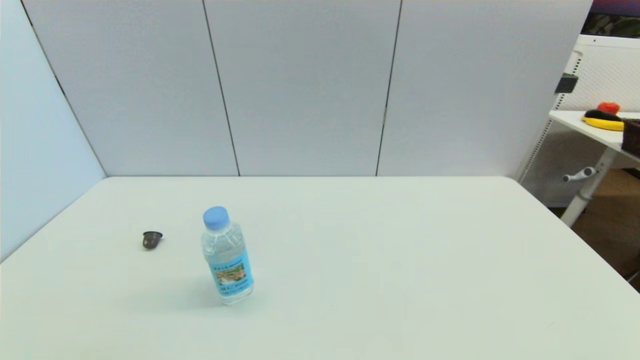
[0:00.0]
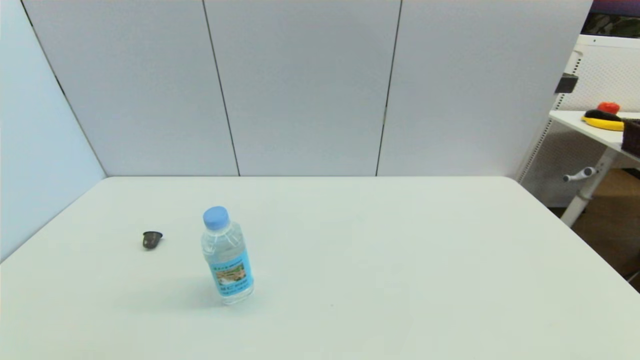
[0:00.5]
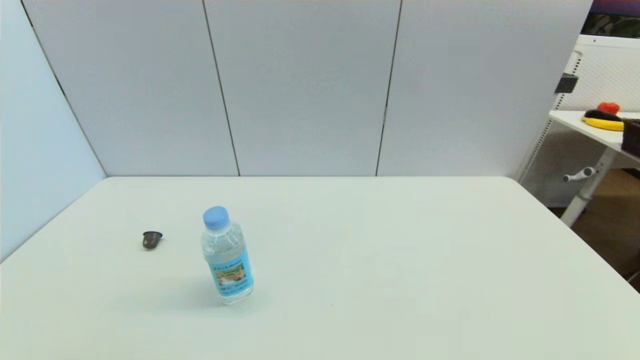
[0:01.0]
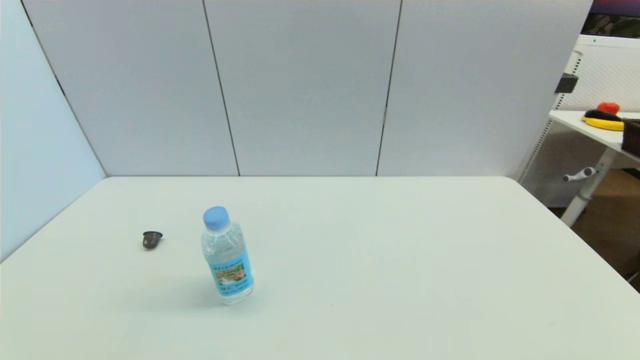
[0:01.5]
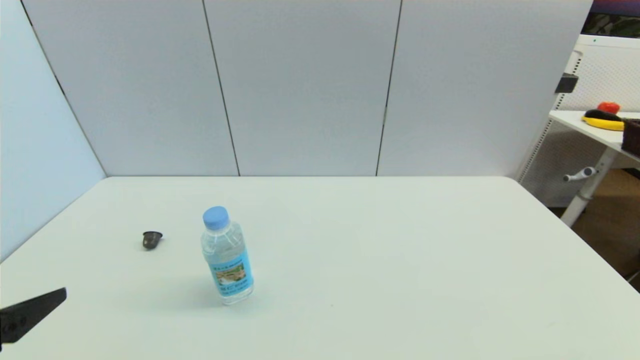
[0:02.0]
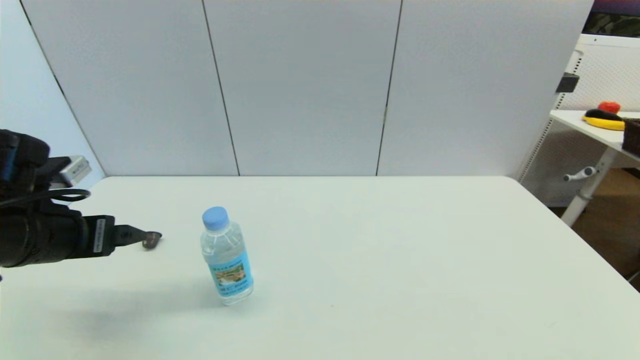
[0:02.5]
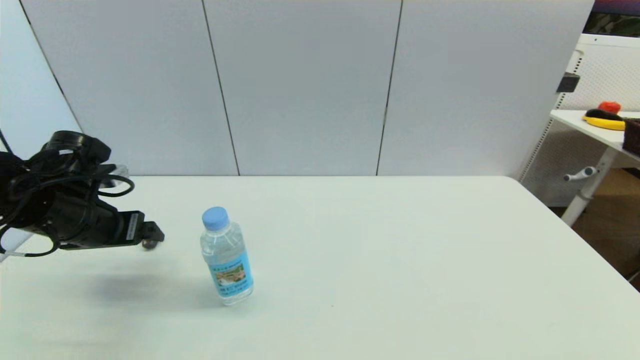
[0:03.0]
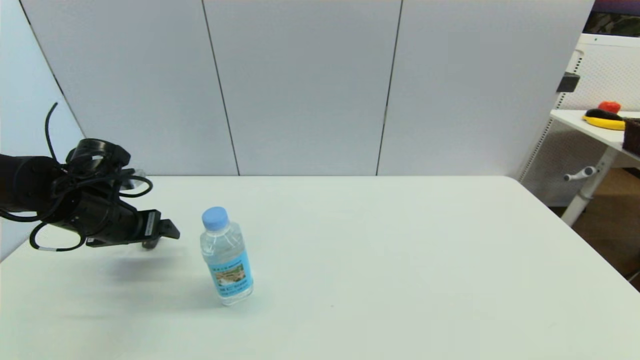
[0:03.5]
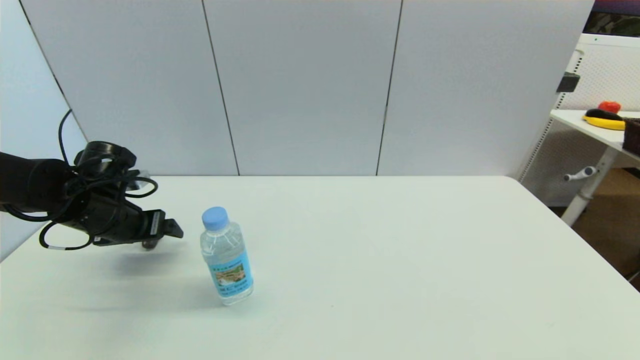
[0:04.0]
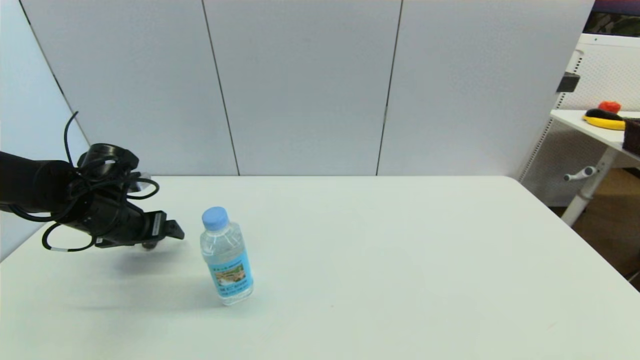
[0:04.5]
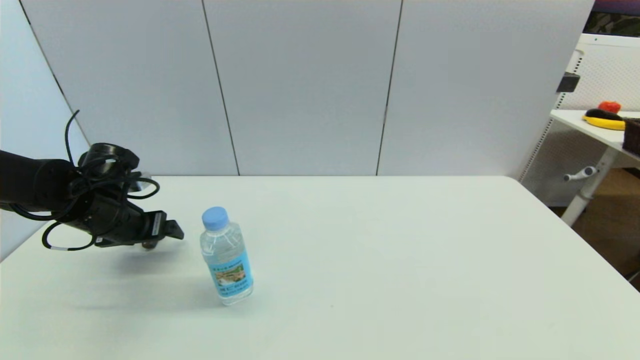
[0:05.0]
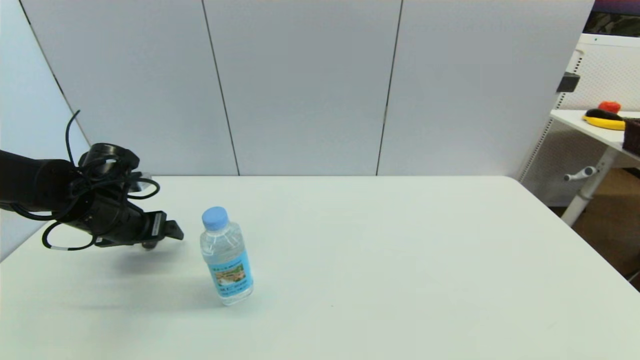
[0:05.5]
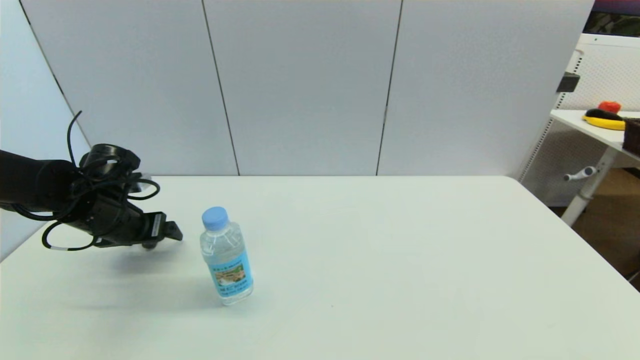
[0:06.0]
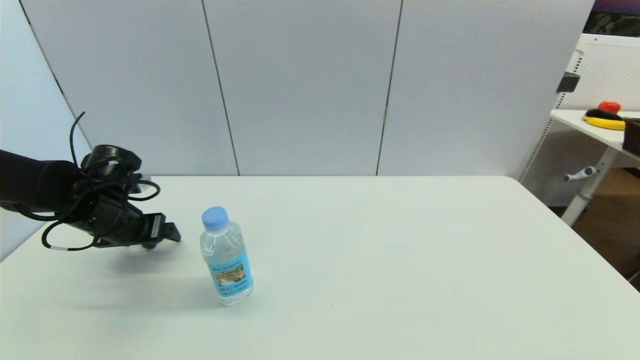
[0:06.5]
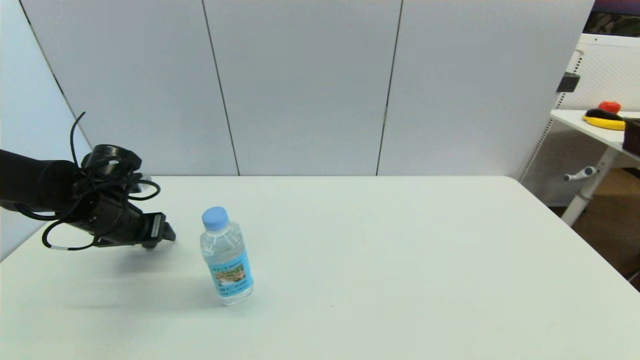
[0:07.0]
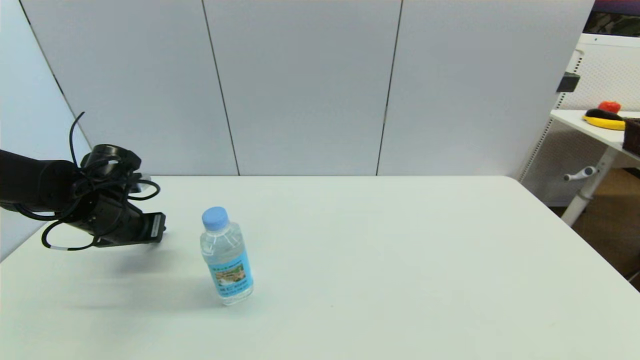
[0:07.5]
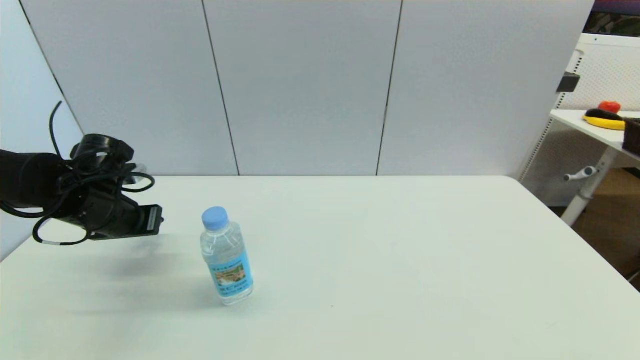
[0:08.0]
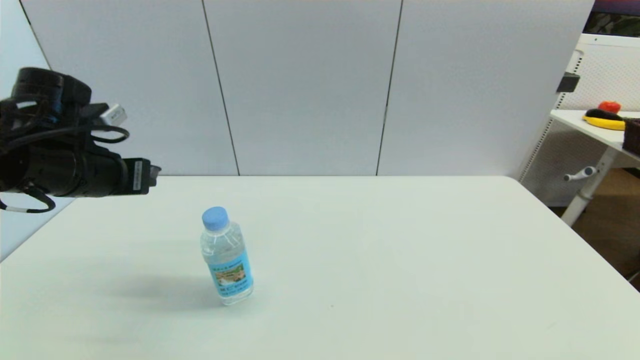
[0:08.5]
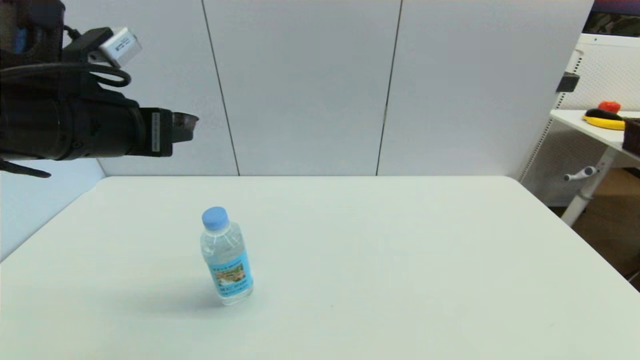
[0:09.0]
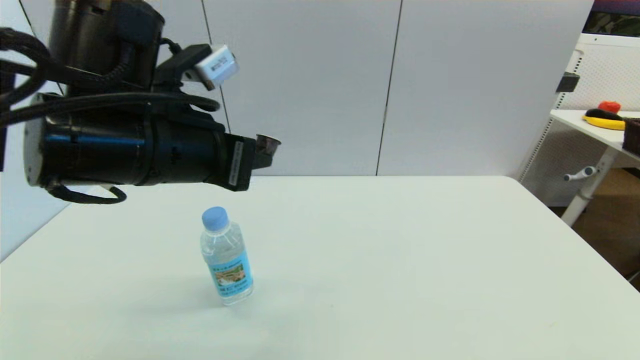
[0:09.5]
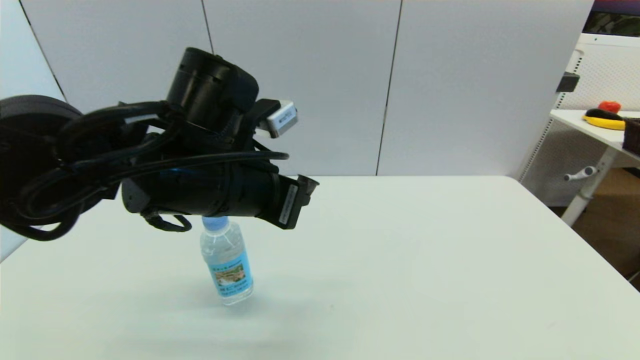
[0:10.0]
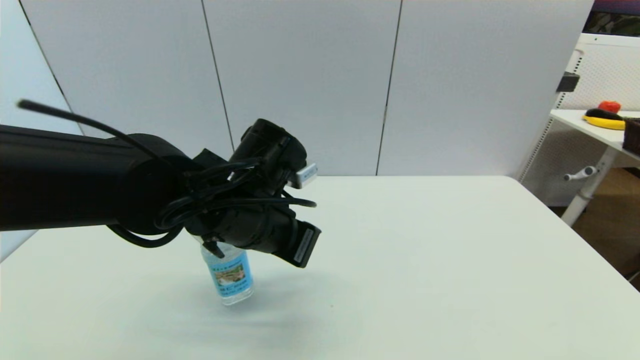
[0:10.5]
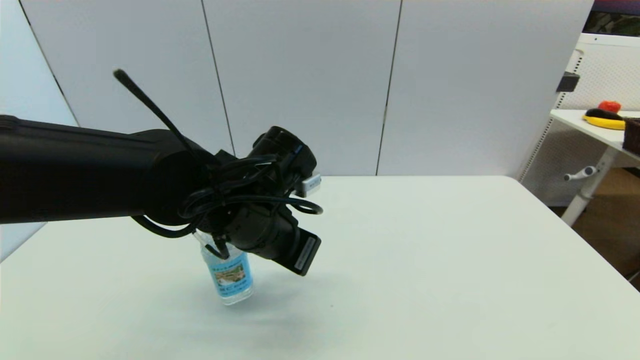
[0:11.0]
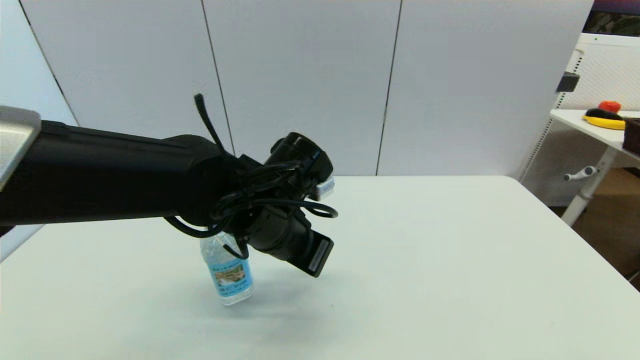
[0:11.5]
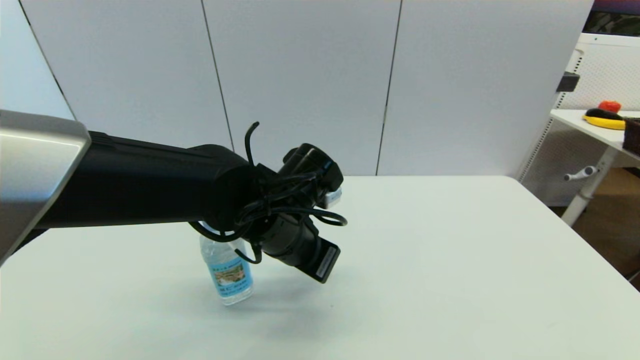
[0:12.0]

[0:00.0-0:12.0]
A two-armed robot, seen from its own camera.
Step, 0:01.5 to 0:07.5: Grasp the coffee capsule with left gripper.
0:00.0 to 0:02.0: The left gripper travels upward and forward by about 15 cm.
0:02.0 to 0:04.0: The left gripper goes approximately 25 cm forward.
0:04.0 to 0:06.0: The two grippers keep their place.
0:06.0 to 0:08.0: The left gripper closes up.
0:08.0 to 0:10.0: The left gripper moves to the right, upward and backward, some 25 cm.
0:10.0 to 0:12.0: The left gripper goes about 10 cm downward and to the right.

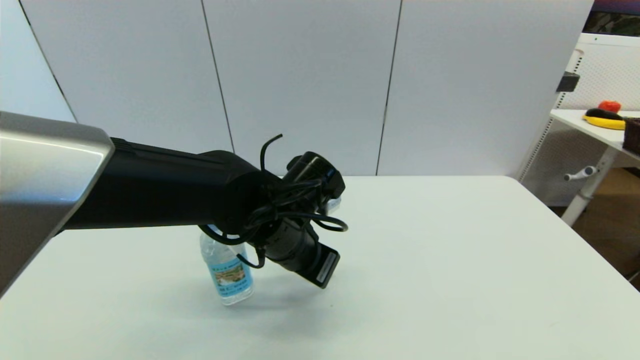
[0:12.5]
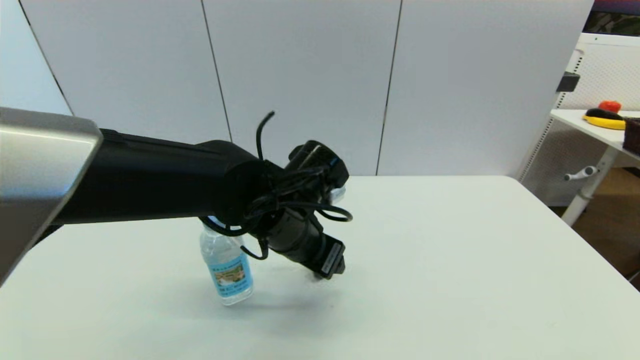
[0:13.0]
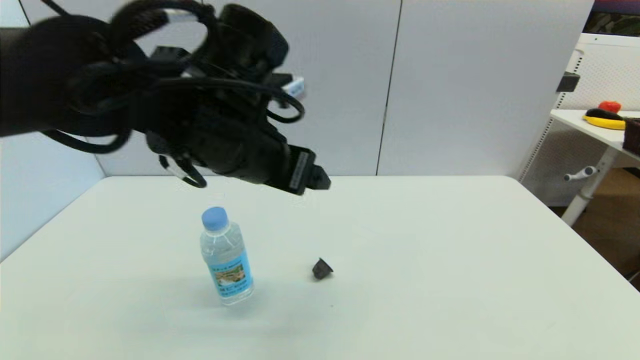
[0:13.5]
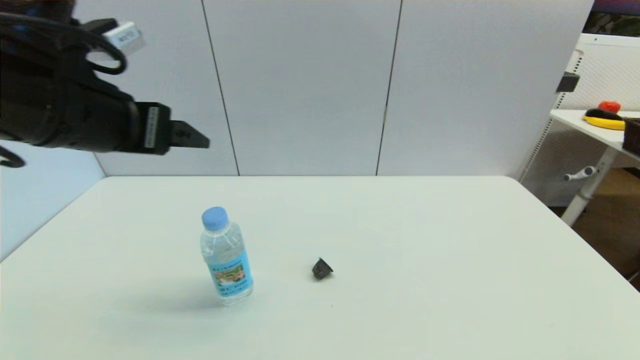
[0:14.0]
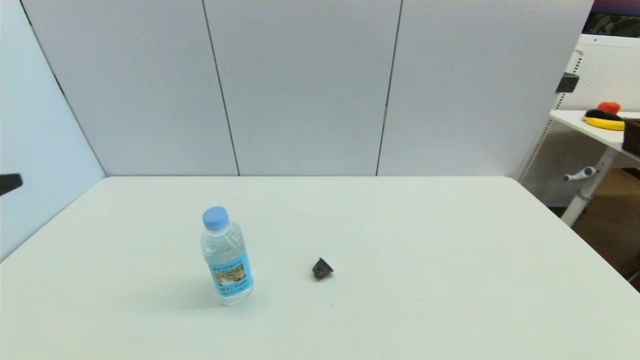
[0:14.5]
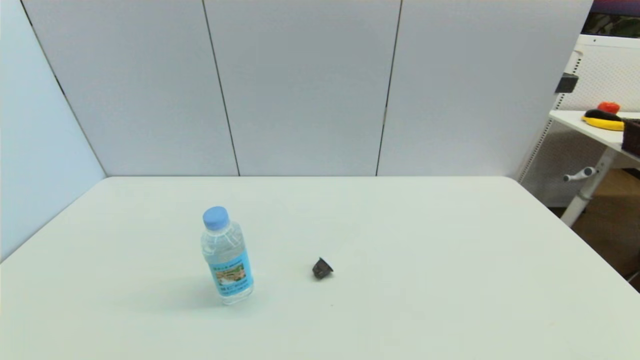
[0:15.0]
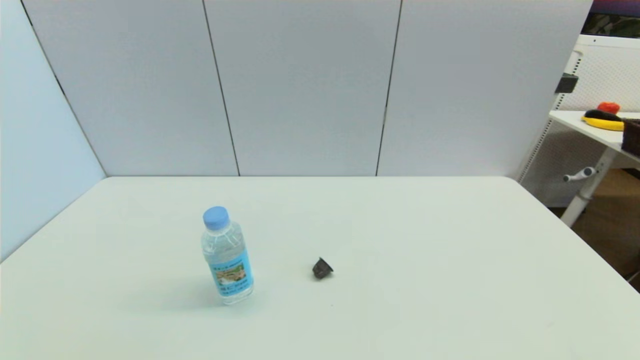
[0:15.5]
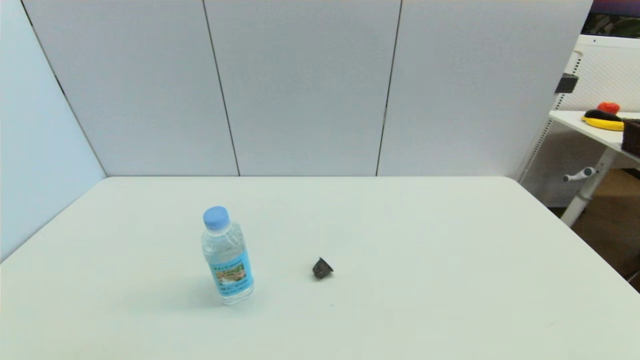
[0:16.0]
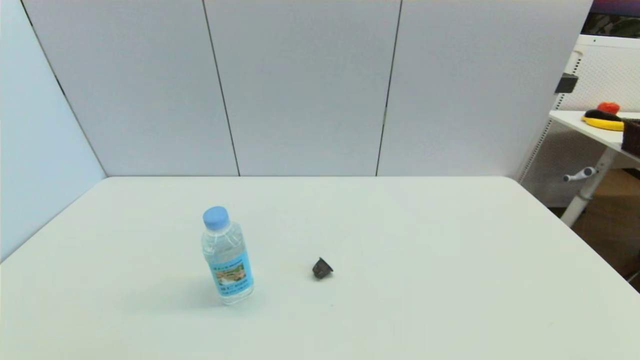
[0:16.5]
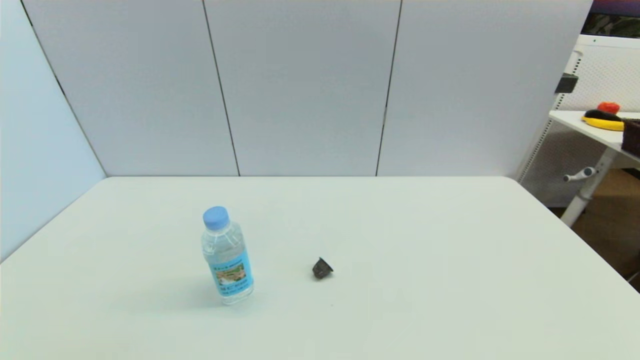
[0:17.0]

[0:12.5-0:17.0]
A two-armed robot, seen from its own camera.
0:12.5 to 0:14.5: The left gripper moves to the left, backward and upward, about 35 cm, and opens up.
